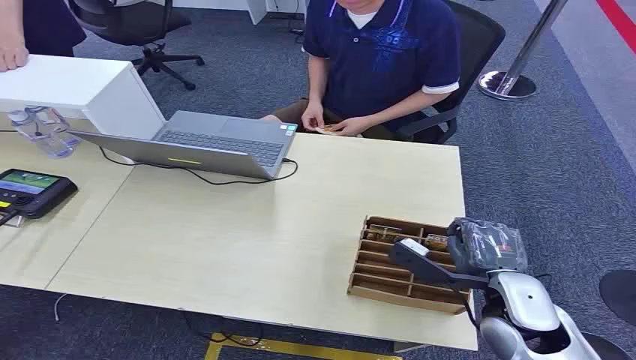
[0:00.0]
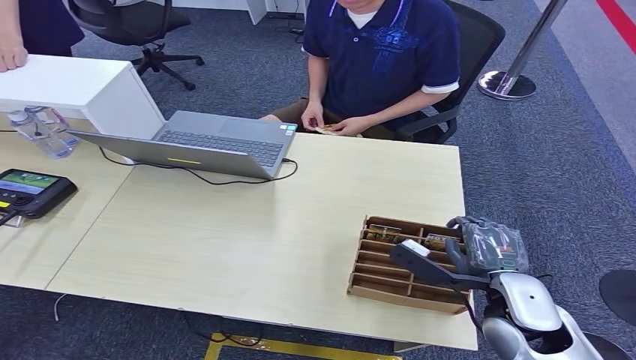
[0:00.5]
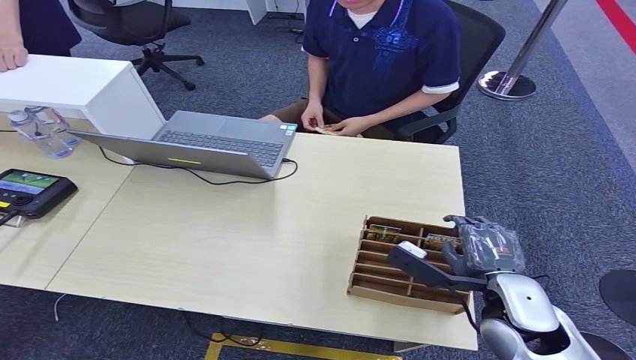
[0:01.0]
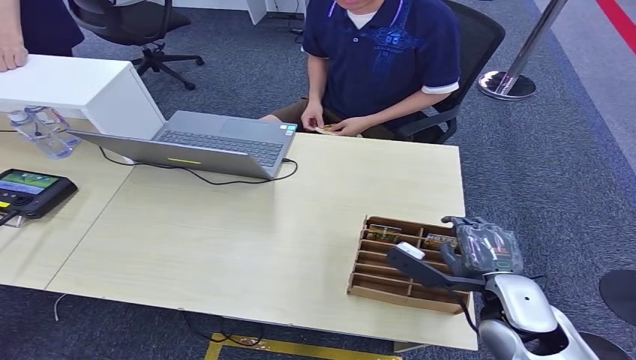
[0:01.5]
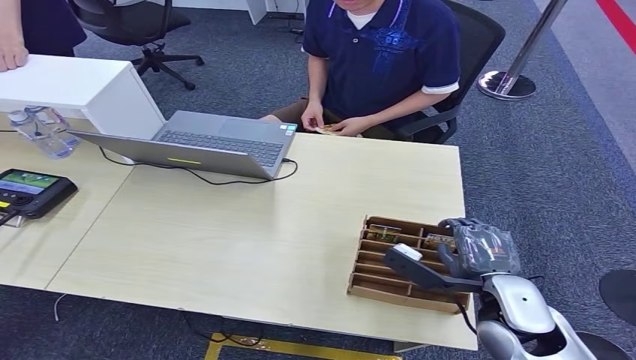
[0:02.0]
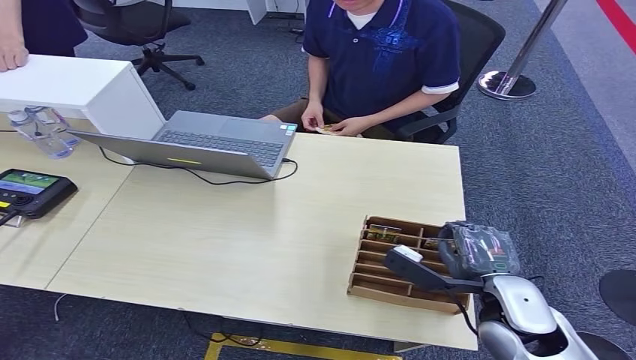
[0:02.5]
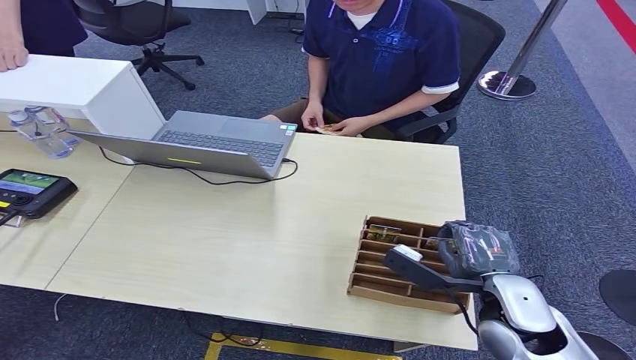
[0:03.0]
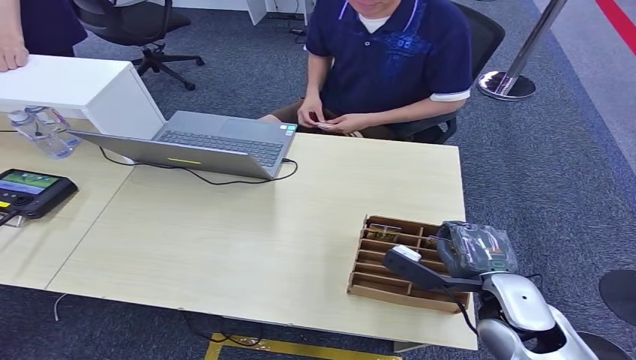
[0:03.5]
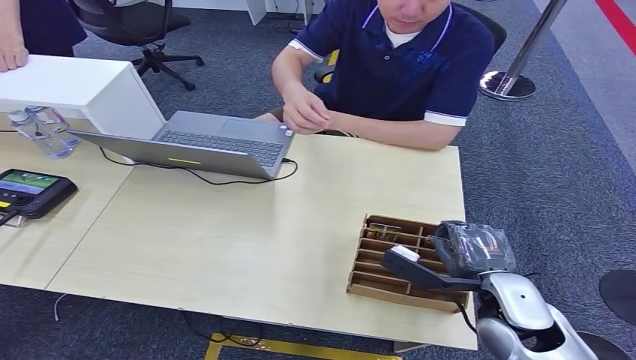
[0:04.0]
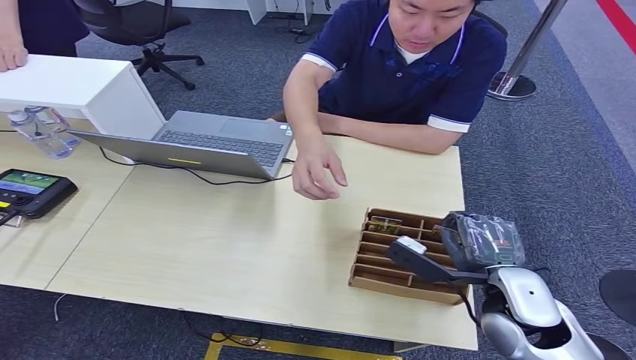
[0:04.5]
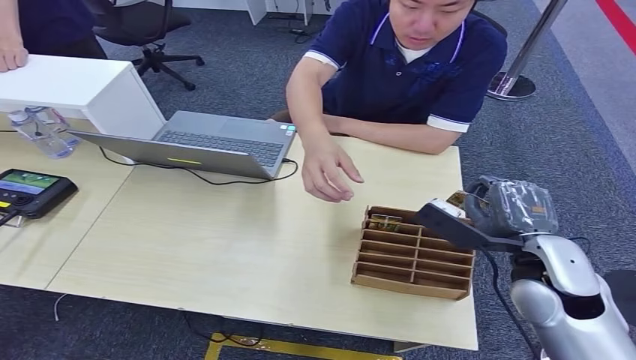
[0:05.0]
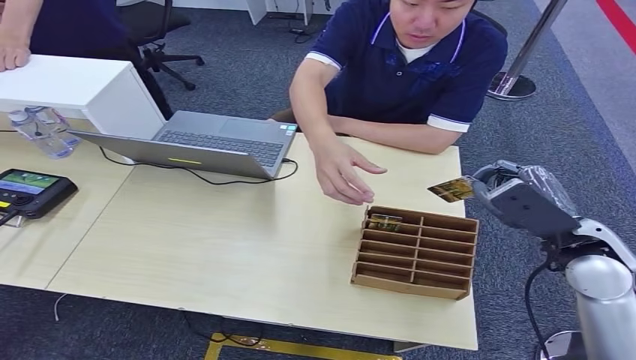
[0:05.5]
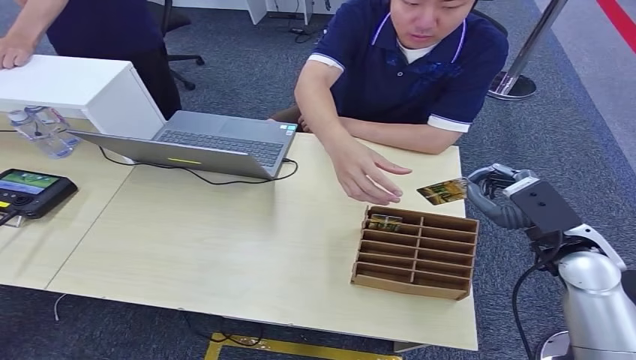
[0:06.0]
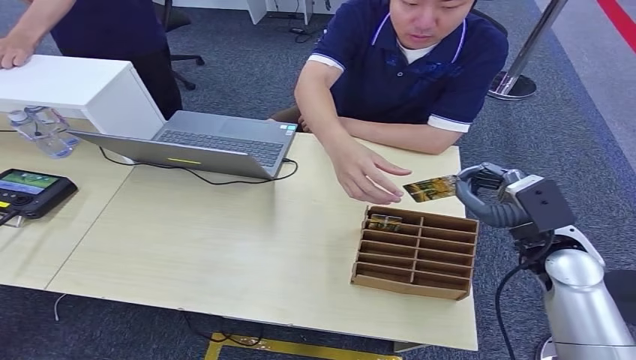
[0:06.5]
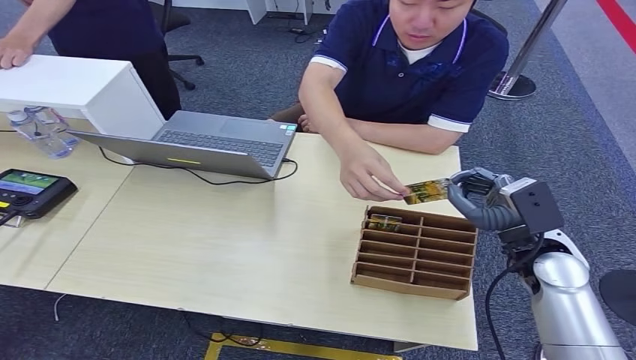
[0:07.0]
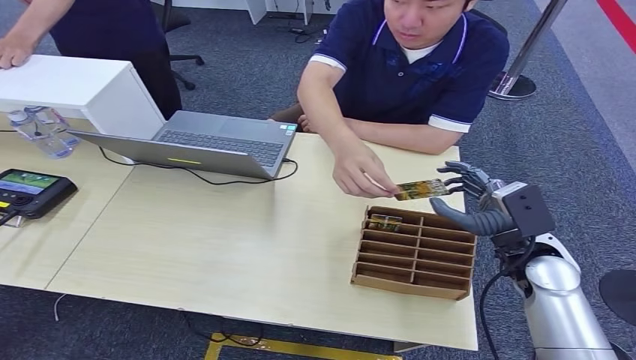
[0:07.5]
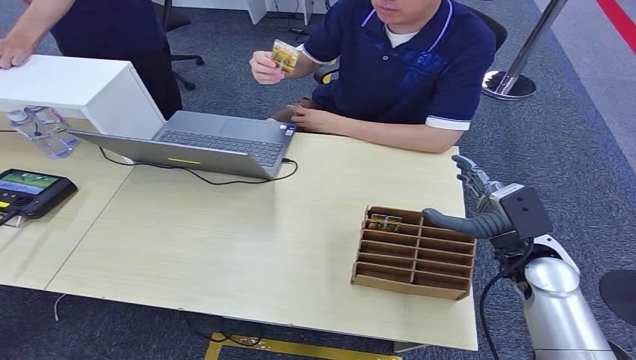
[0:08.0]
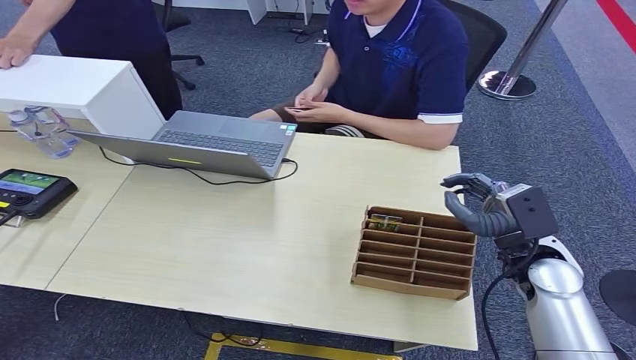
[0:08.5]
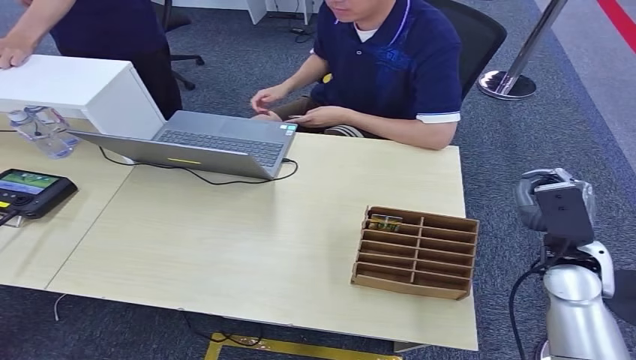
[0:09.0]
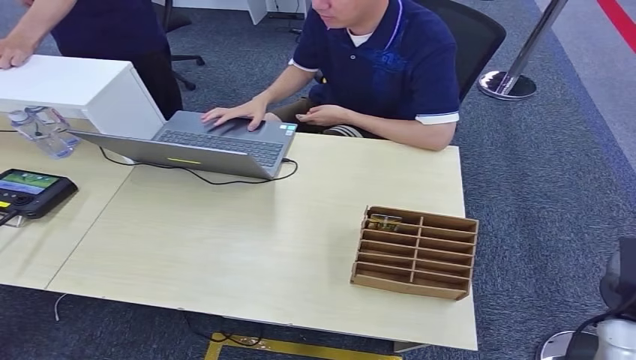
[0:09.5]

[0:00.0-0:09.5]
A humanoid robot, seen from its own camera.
Step, 0:00.0 to 0:05.0: Pick up the key card from the card box.
Step, 0:05.5 to 0:09.5: Hand the key card to the target.
0:02.0 to 0:04.0: The hands move only a little.
0:05.5 to 0:07.5: The right hand is displaced downward by about 5 cm.
0:07.5 to 0:09.5: The right hand heads to the right, backward and downward, covering approximately 20 cm.
